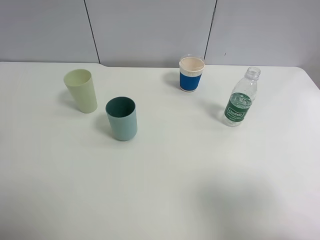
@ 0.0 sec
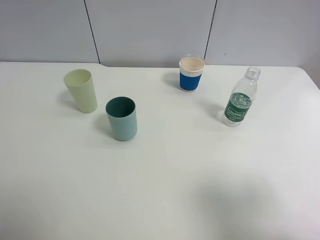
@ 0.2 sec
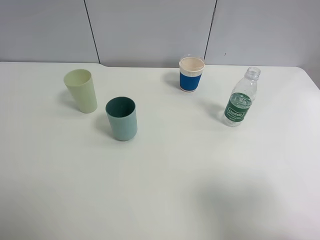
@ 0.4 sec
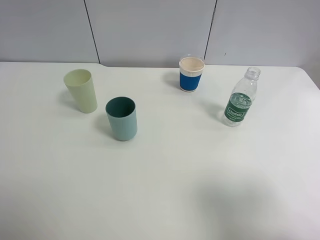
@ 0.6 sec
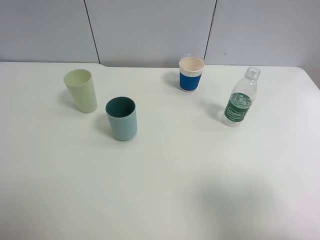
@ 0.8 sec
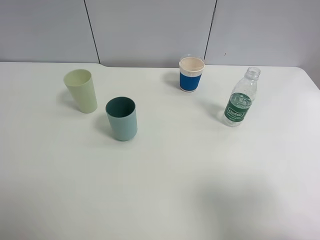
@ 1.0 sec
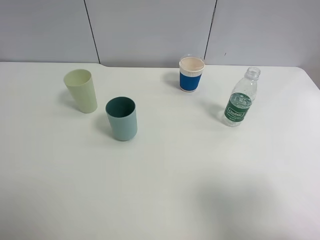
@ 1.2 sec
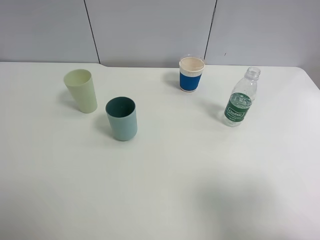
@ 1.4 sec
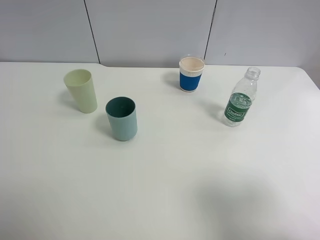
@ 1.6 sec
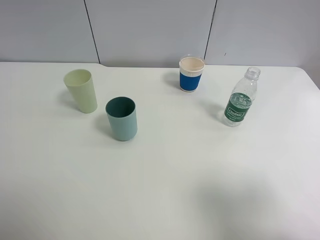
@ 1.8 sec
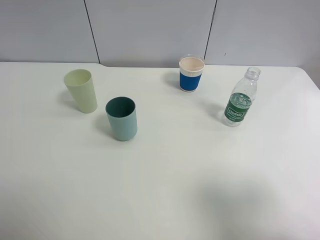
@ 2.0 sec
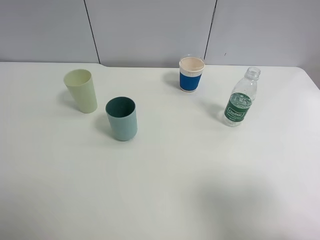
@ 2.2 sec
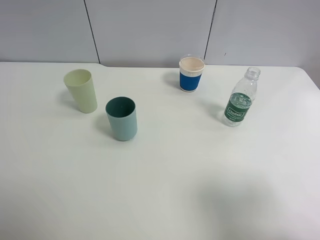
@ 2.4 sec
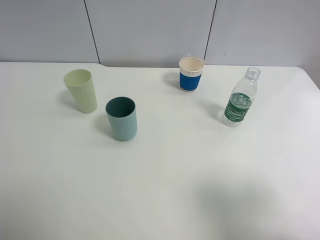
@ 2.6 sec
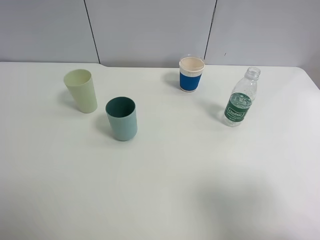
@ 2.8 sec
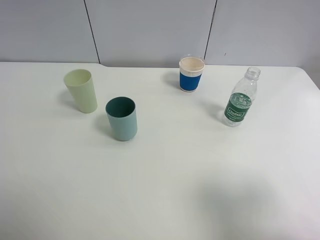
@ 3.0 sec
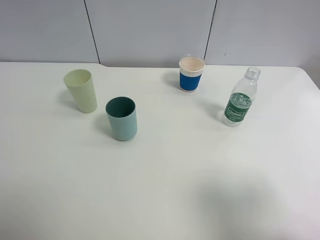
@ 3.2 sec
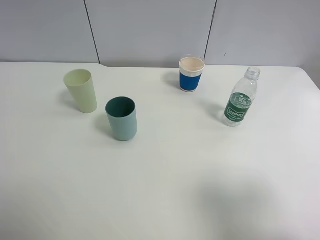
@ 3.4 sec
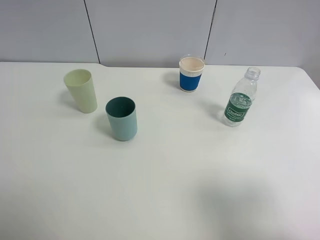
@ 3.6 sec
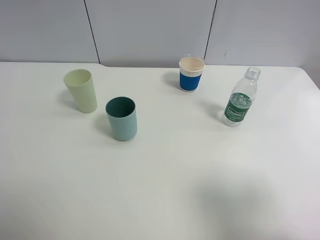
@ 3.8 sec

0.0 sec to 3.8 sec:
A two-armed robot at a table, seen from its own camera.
Task of the whole recording: use a clamp to hold the bottle of the drink, pour the beverage into a random cup, then clamp the cup containing the drink and pour the drink into another random cup.
2.6 sec to 3.8 sec: Both grippers stay about where they are.
